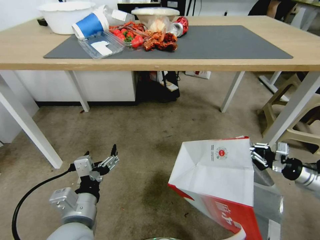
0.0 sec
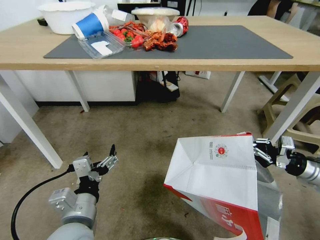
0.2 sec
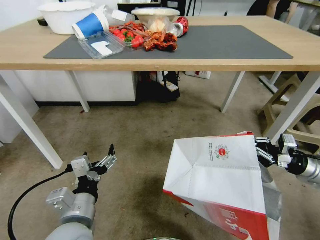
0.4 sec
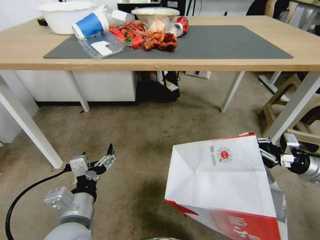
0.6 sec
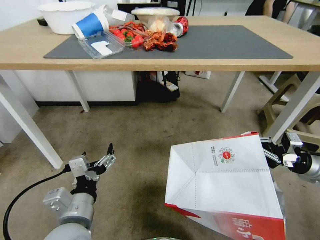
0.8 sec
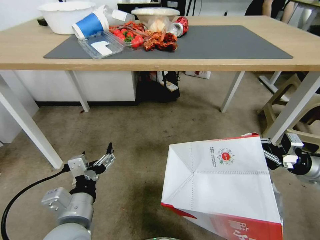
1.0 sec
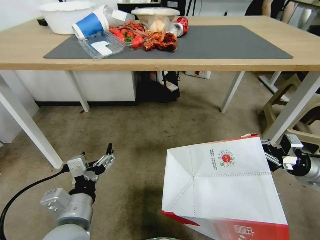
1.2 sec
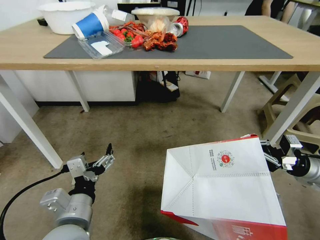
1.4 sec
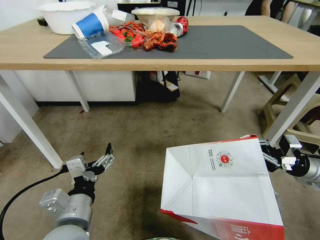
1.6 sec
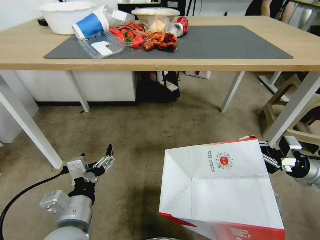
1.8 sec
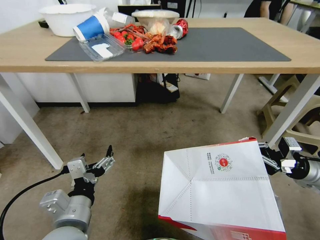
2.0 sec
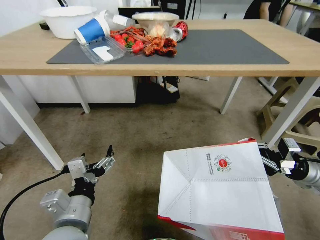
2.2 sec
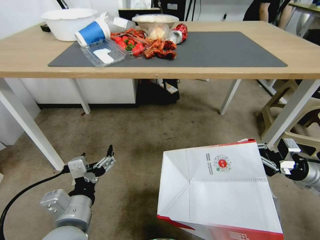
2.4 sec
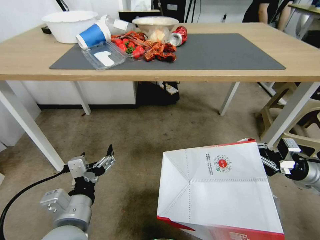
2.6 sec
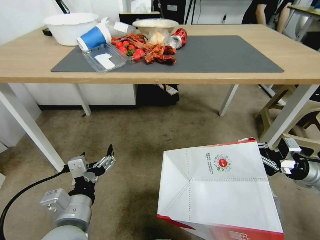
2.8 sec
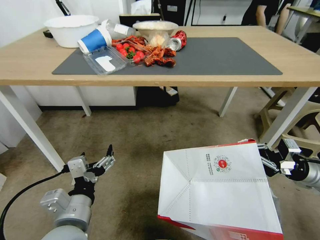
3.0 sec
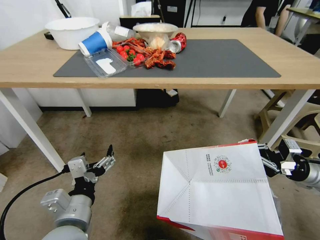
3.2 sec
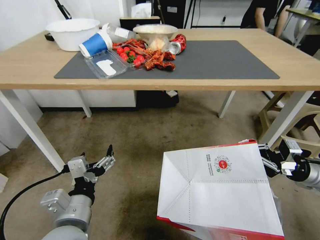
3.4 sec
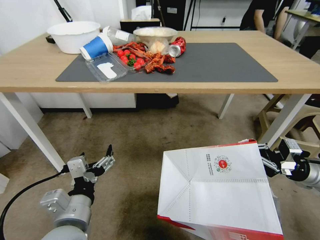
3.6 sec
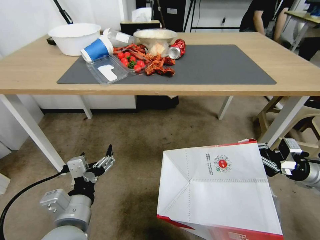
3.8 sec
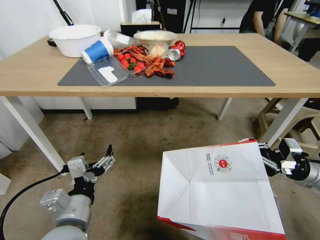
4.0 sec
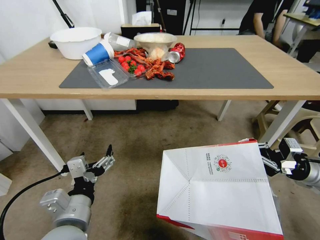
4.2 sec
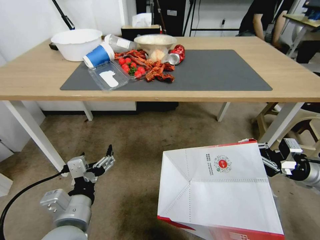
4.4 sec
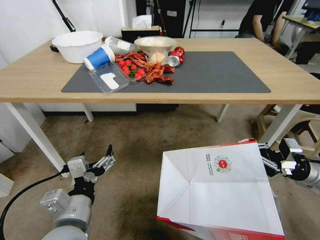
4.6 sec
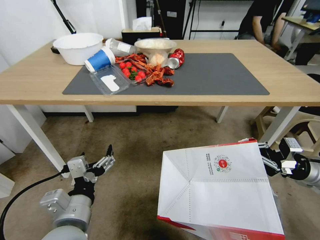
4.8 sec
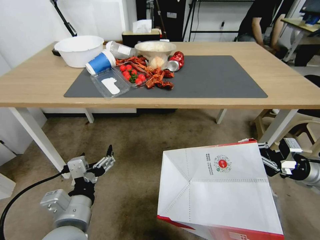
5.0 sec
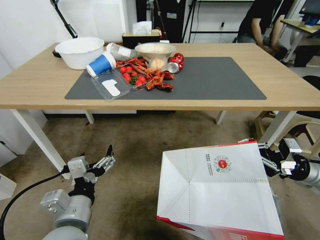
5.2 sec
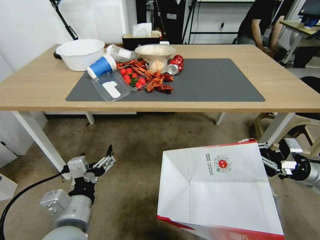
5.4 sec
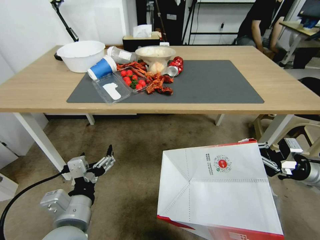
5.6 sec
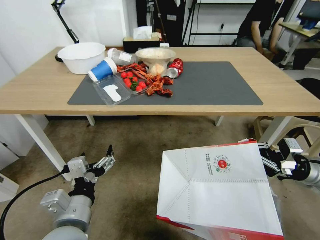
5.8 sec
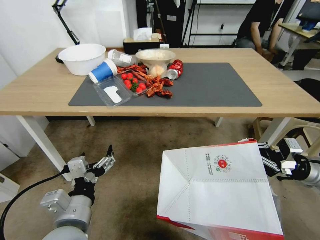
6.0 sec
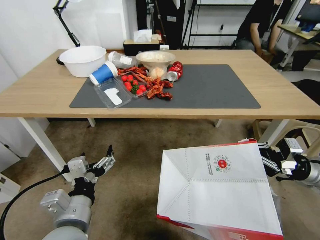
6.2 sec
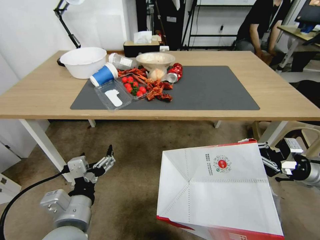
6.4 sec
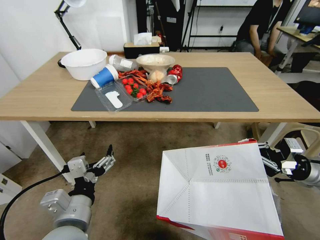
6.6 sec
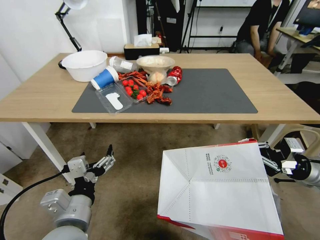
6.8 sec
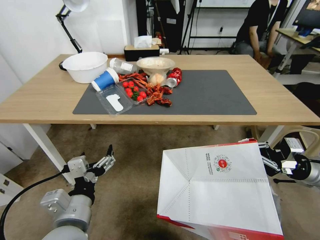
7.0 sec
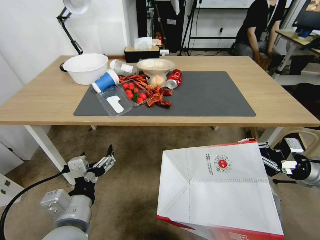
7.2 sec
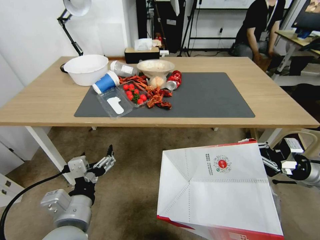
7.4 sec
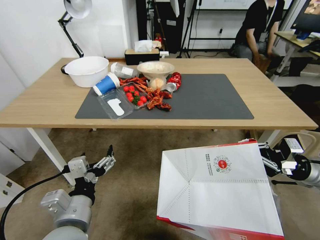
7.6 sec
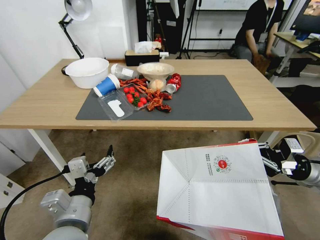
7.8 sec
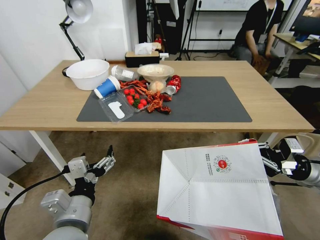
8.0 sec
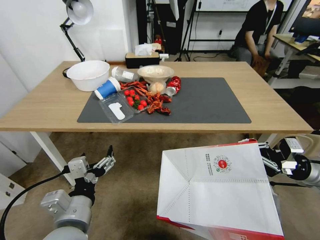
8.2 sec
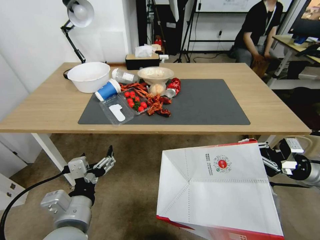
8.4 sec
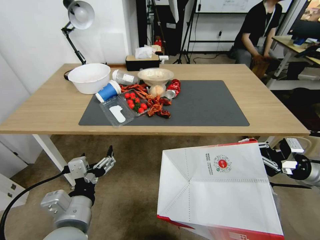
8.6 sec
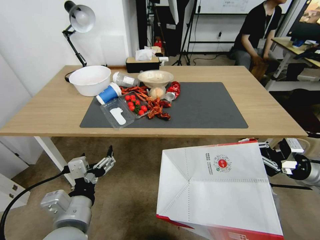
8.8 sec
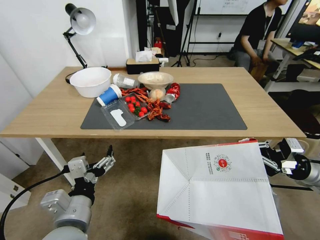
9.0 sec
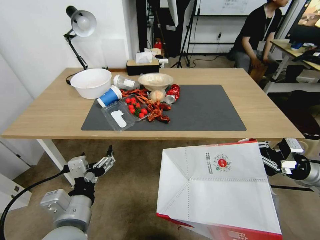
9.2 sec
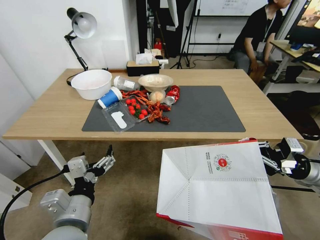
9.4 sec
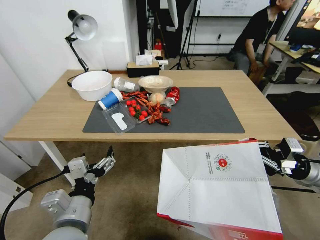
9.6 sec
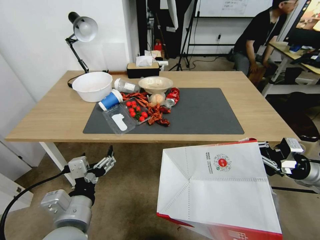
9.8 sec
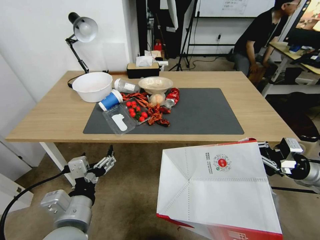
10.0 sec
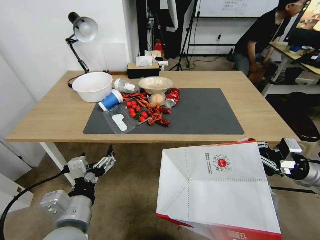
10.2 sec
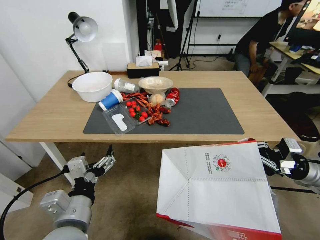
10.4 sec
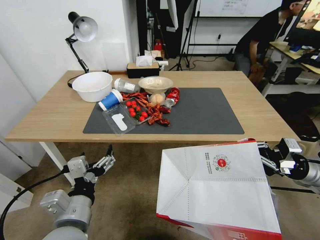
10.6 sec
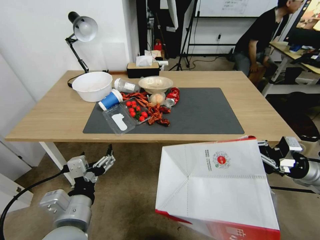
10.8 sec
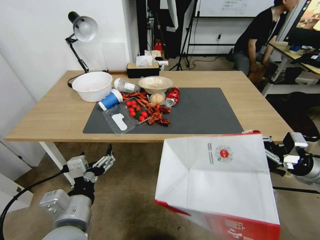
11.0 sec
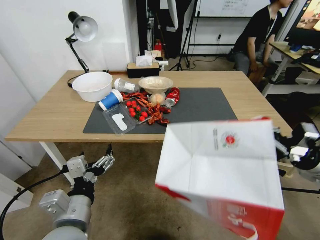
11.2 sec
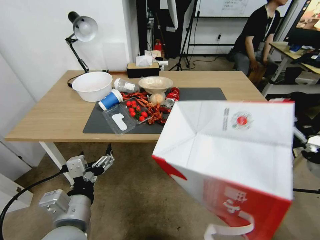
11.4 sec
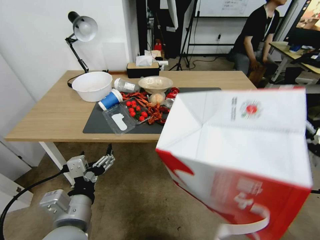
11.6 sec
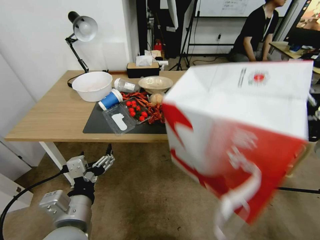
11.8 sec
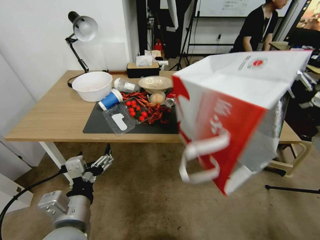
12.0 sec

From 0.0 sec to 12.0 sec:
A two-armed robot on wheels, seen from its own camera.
Task of the whole recording: Pick up the food delivery bag from the floor and place it on the table.
From 0.0 sec to 1.6 sec: The right gripper ends up about 5 cm from where it was.
From 10.4 sec to 12.0 sec: The right gripper shifts about 10 cm upward.

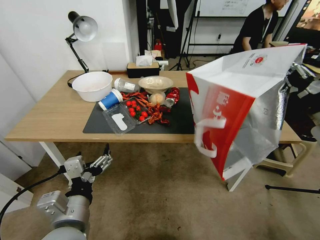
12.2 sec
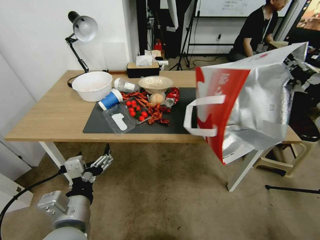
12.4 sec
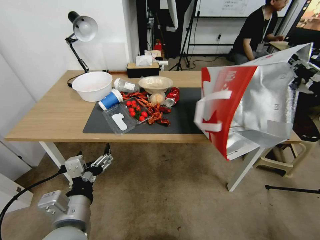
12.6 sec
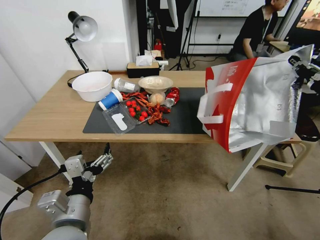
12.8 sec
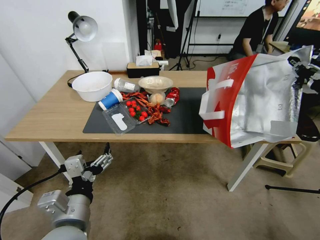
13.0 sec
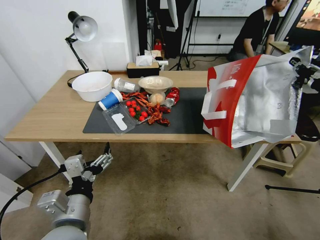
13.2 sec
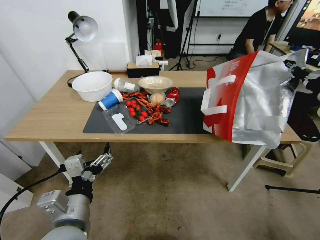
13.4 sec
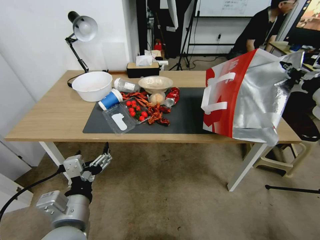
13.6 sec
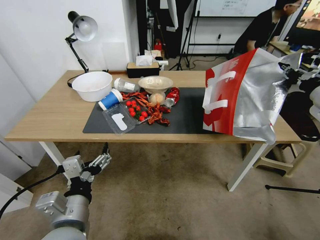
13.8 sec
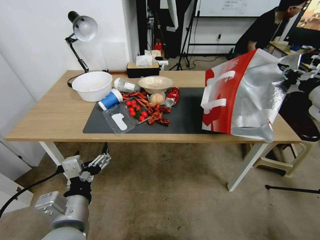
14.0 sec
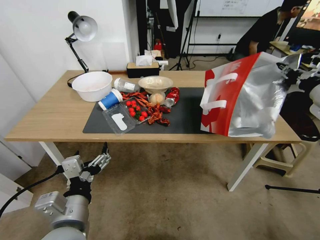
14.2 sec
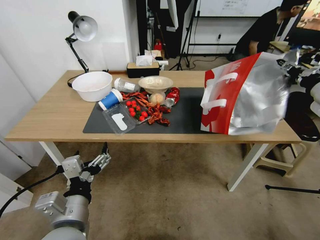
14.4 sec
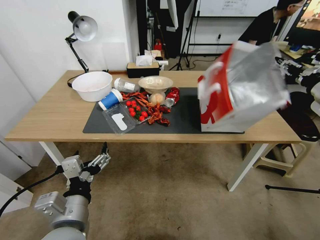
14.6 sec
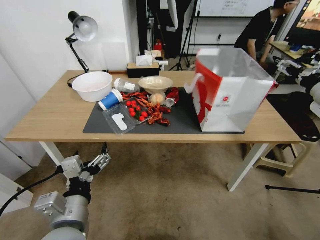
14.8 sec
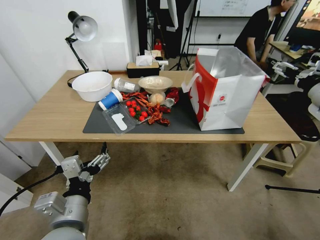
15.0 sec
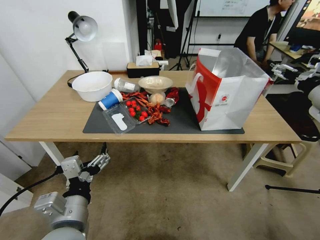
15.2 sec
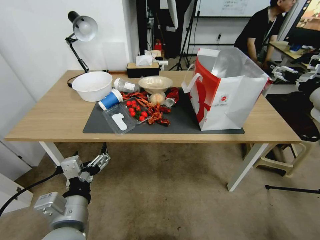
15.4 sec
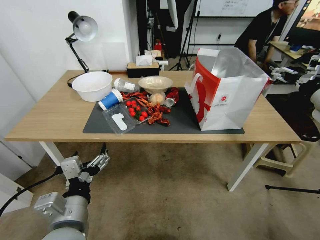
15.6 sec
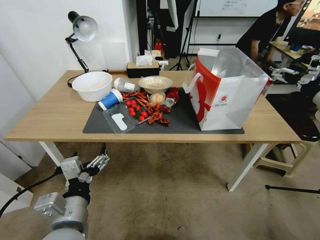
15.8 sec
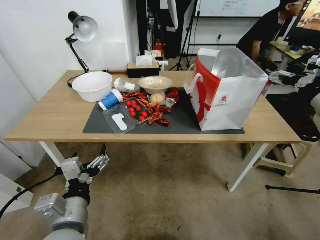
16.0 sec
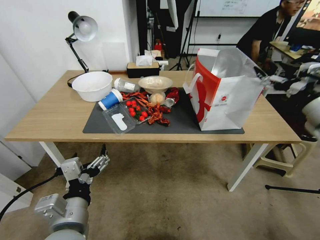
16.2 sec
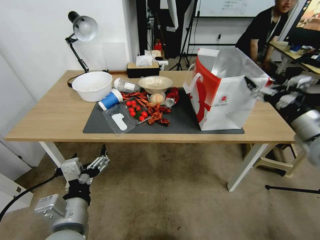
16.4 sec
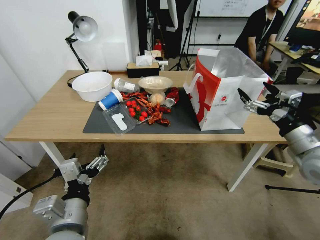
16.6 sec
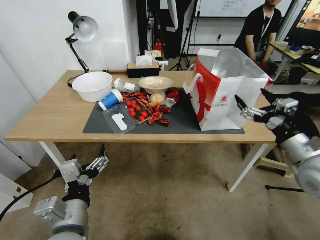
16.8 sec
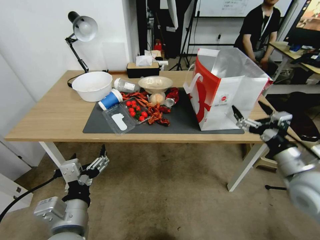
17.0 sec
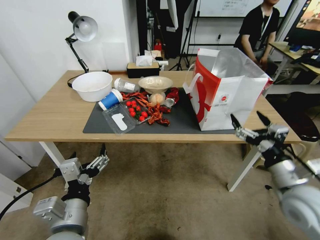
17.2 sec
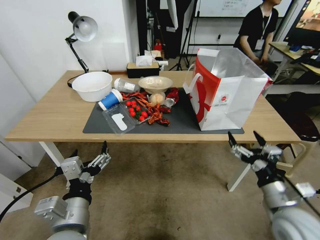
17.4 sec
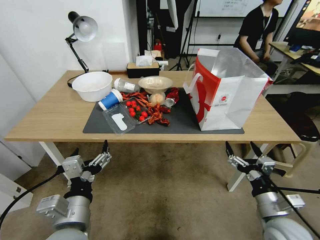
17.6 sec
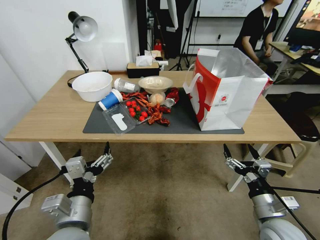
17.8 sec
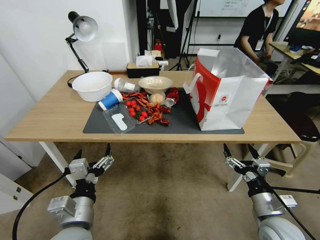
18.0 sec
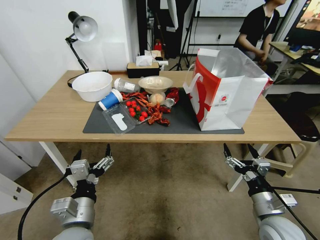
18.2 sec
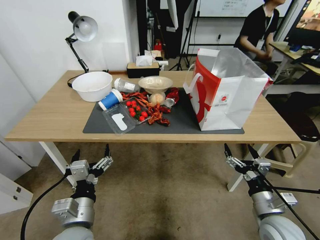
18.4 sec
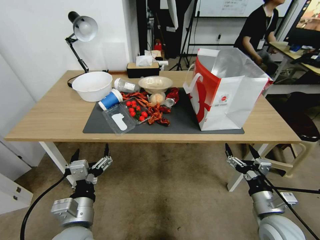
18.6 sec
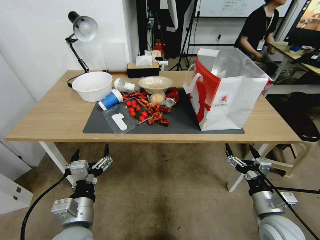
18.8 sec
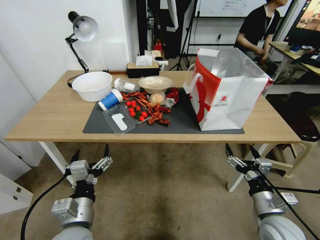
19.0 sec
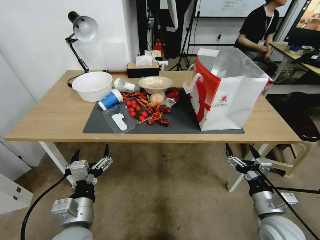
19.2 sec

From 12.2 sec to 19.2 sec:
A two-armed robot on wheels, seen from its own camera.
Task of the whole recording: Pick up the food delivery bag from the floor and place it on the table.
From 12.2 sec to 13.6 sec: The right gripper moves forward, some 10 cm.
From 13.6 sec to 15.0 sec: The right gripper opens up.
From 15.0 sec to 16.4 sec: The right gripper shifts by approximately 5 cm.
From 16.4 sec to 17.8 sec: The right gripper goes approximately 30 cm downward, backward and to the left.
From 17.8 sec to 19.2 sec: The grippers stay close to where they were, moving slightly.

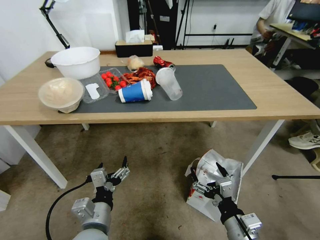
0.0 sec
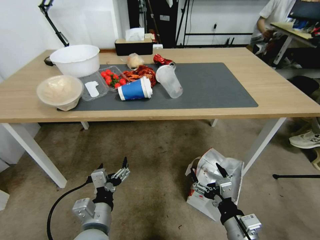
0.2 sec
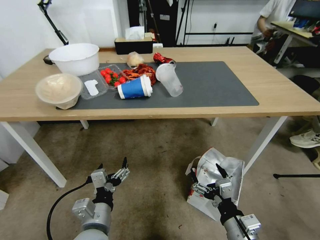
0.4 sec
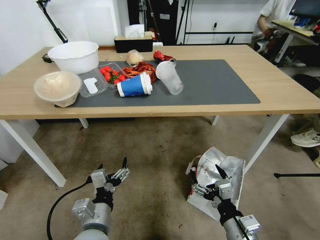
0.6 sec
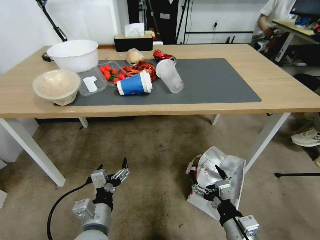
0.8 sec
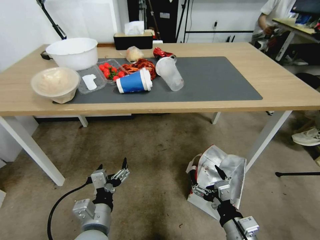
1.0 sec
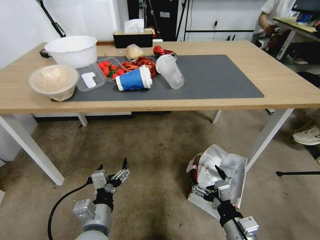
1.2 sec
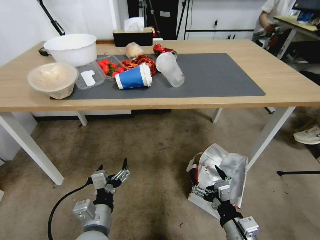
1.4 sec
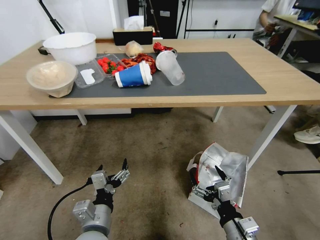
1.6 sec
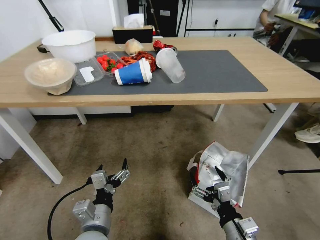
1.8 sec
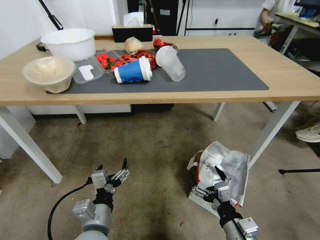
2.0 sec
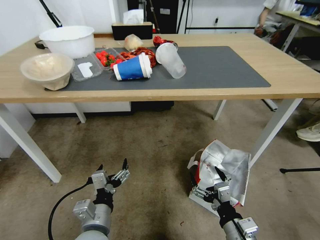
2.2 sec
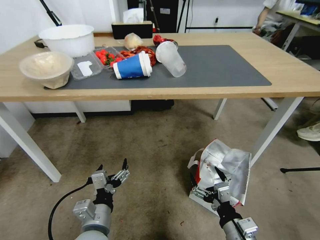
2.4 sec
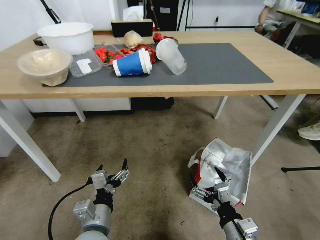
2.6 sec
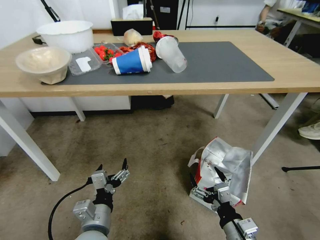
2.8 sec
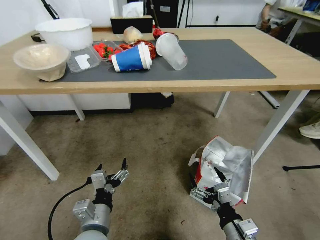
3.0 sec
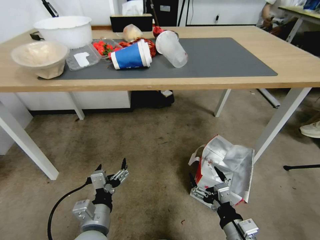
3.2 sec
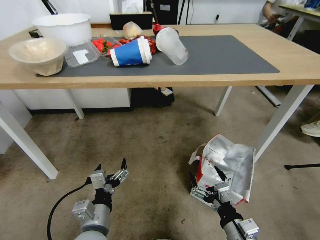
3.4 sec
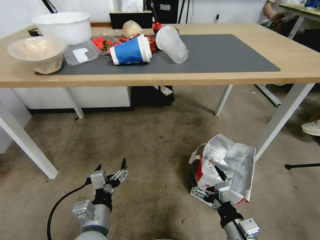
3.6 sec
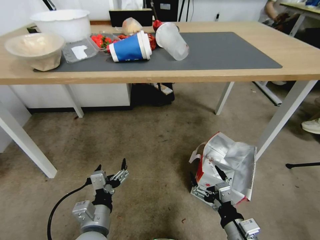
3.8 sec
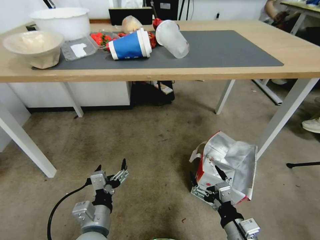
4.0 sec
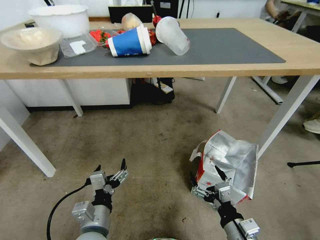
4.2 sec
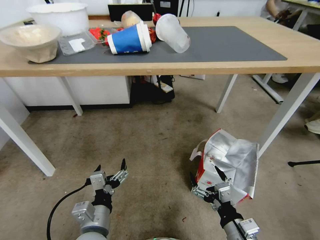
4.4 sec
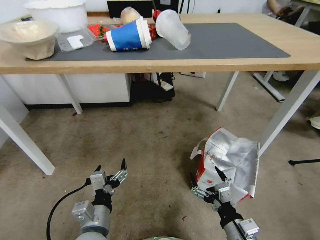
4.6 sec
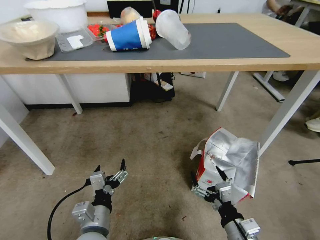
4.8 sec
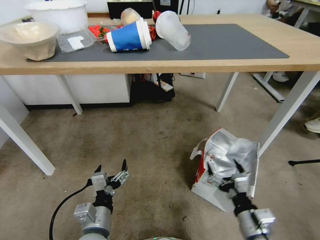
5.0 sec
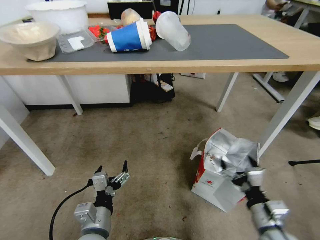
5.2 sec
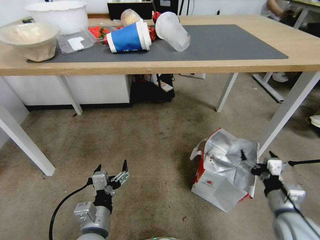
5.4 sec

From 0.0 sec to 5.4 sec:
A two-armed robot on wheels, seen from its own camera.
Task of the whole recording: Pick up the food delivery bag from the floor and place it on the table.
From 4.0 sec to 5.4 sec: The right gripper is displaced to the right and forward by some 15 cm.
